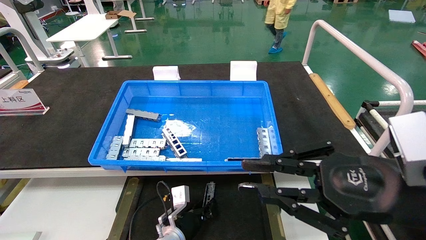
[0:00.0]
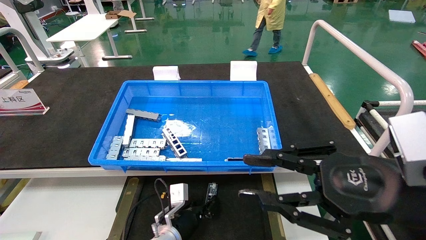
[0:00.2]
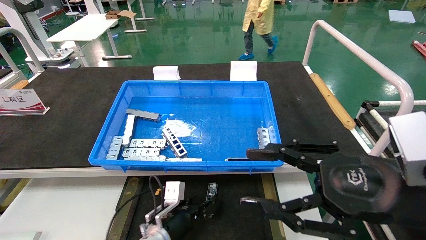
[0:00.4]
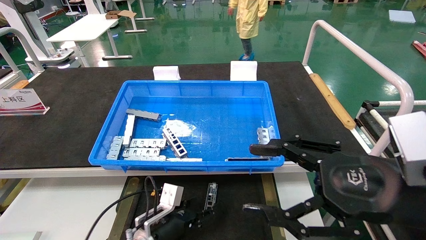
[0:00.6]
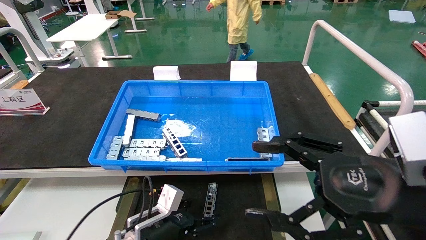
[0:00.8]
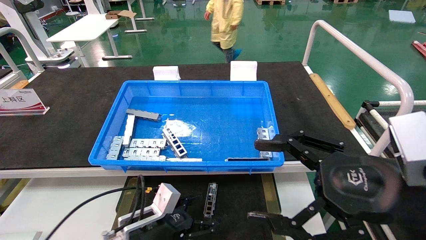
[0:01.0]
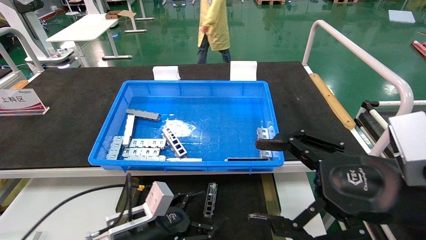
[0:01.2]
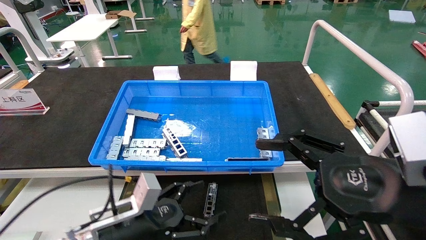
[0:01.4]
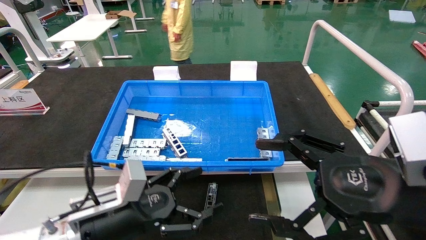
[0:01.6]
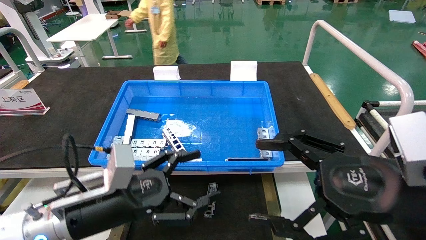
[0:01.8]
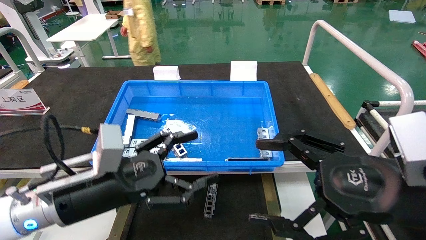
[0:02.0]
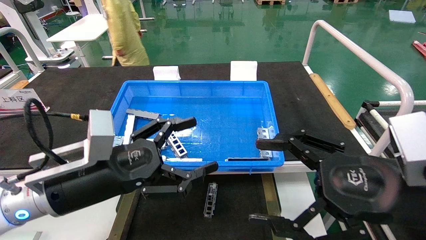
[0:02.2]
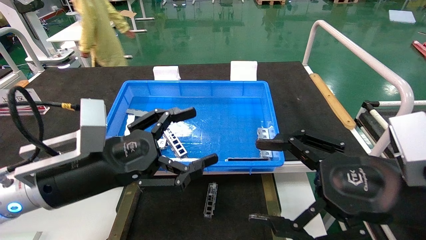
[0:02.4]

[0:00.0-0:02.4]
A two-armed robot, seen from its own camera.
Task of the whole recording: Grasp the part with one hand and place it on the black container.
0:00.0 to 0:01.2: The left gripper goes roughly 15 cm upward, backward and to the left, and opens. Meanwhile the right gripper opens up.
0:01.2 to 0:02.4: The left gripper travels upward by some 15 cm.

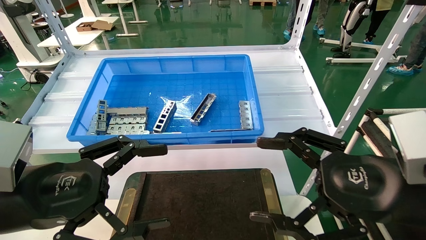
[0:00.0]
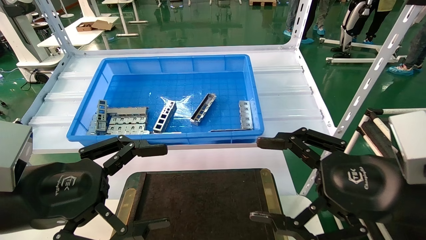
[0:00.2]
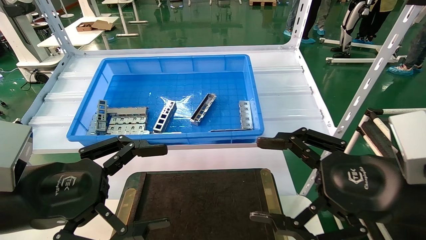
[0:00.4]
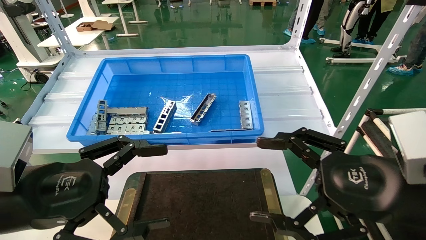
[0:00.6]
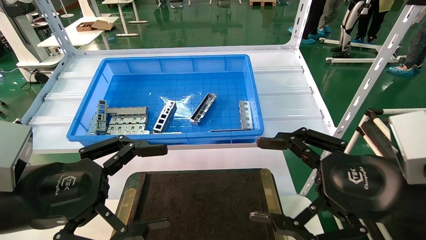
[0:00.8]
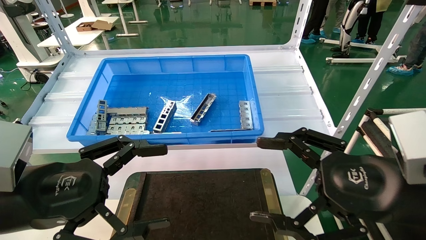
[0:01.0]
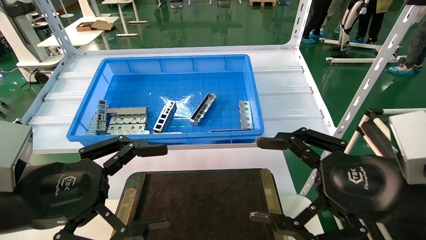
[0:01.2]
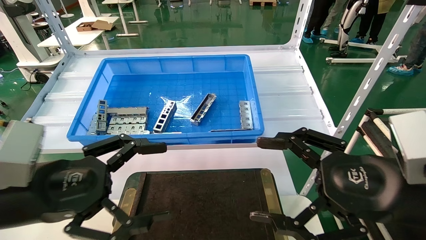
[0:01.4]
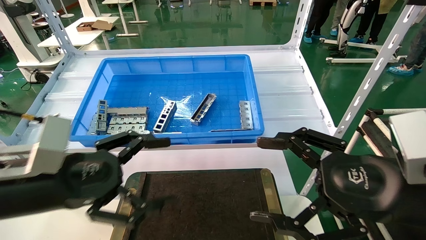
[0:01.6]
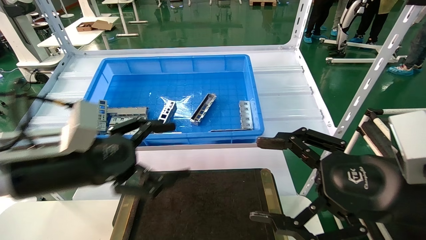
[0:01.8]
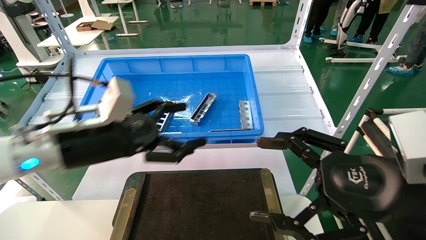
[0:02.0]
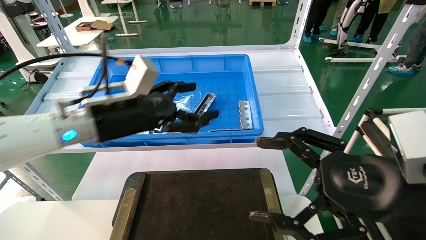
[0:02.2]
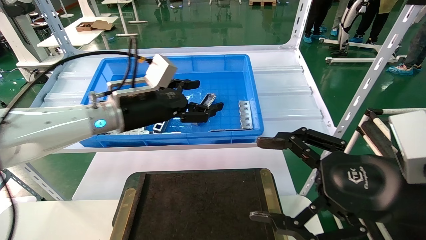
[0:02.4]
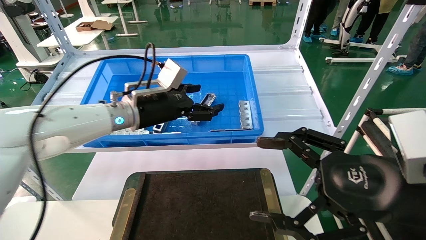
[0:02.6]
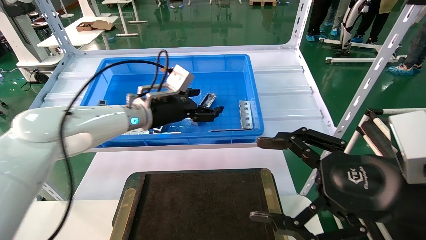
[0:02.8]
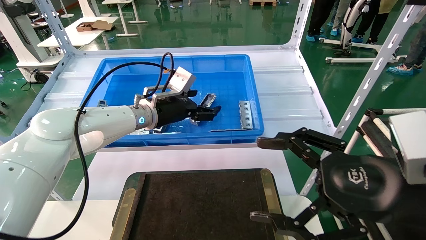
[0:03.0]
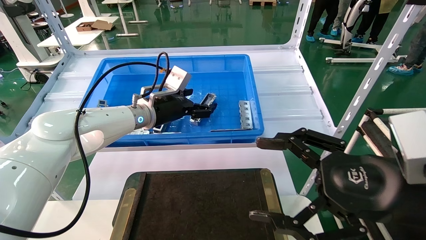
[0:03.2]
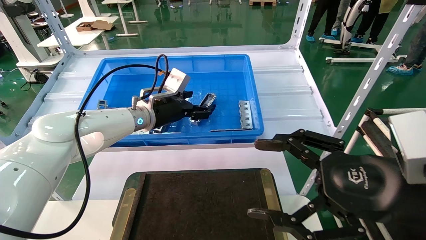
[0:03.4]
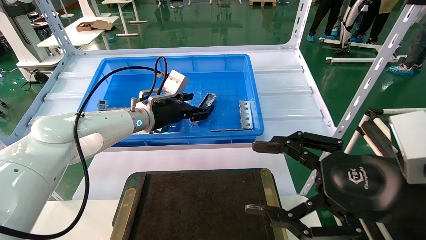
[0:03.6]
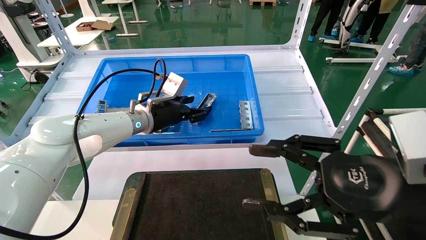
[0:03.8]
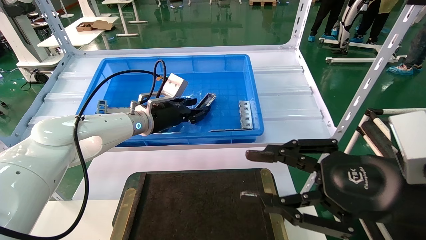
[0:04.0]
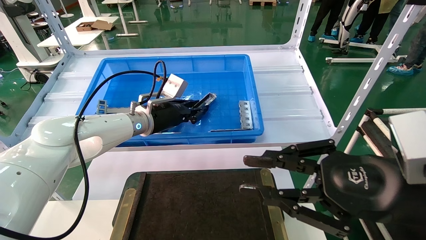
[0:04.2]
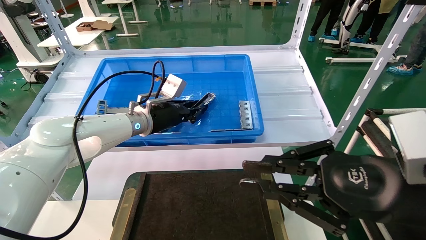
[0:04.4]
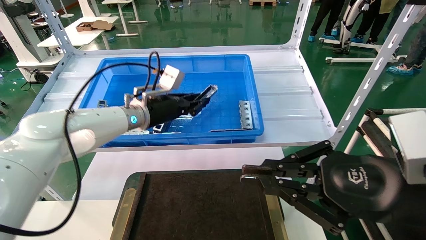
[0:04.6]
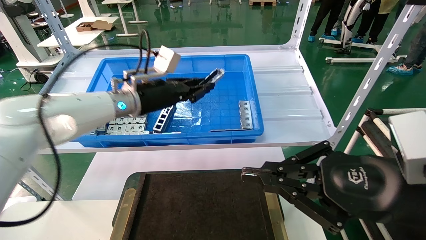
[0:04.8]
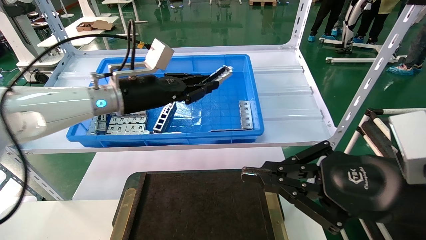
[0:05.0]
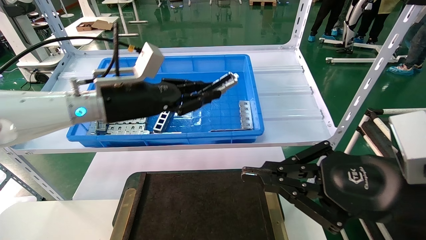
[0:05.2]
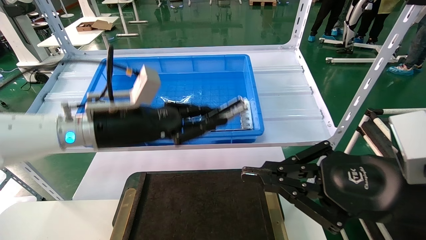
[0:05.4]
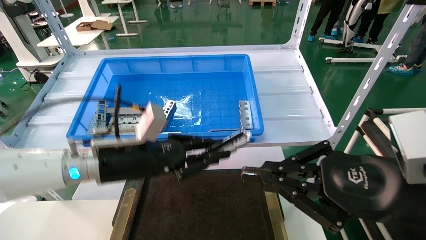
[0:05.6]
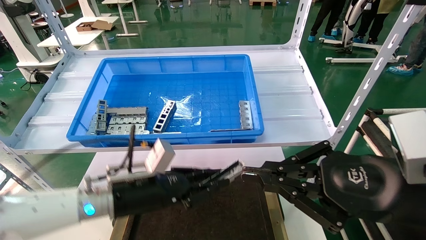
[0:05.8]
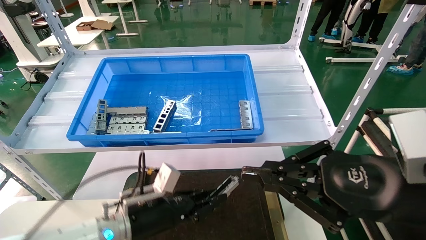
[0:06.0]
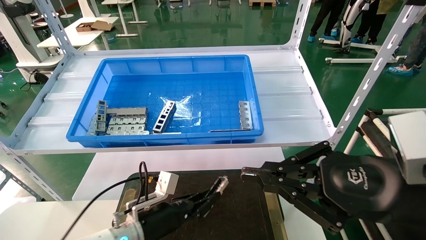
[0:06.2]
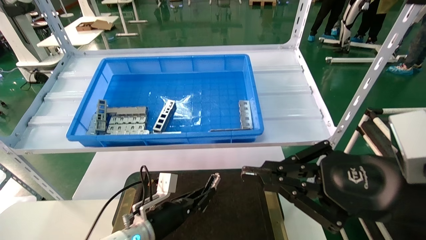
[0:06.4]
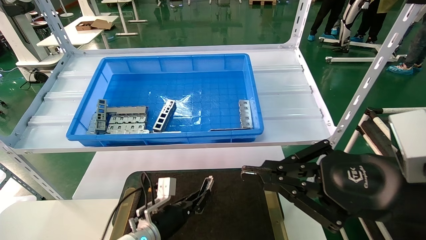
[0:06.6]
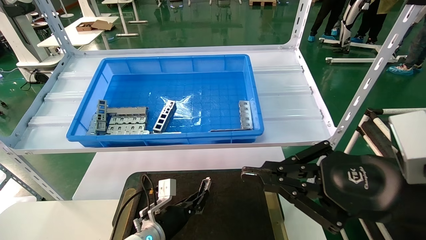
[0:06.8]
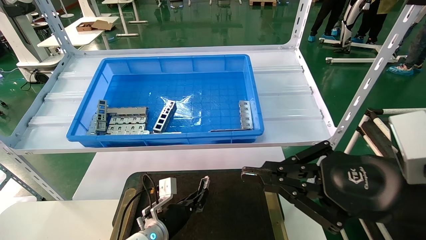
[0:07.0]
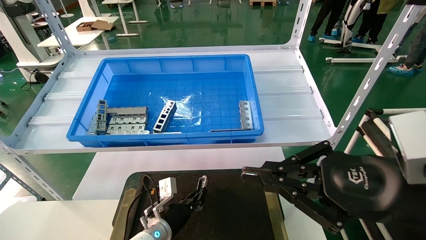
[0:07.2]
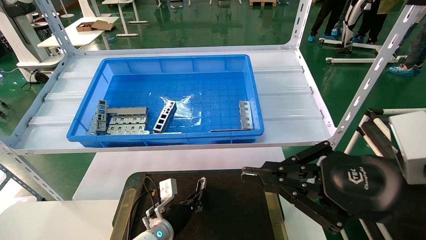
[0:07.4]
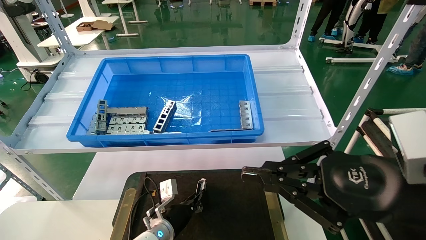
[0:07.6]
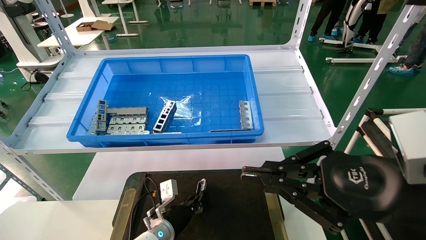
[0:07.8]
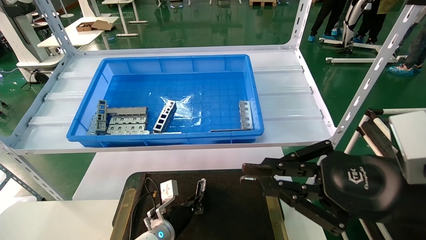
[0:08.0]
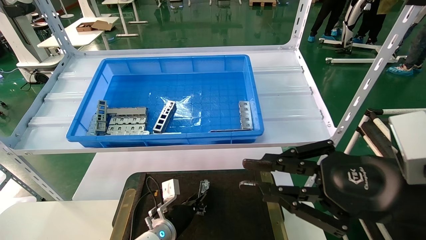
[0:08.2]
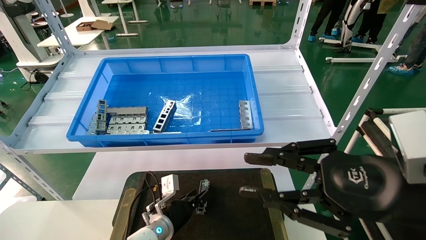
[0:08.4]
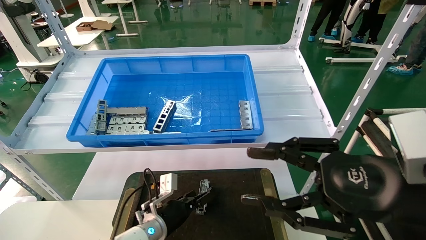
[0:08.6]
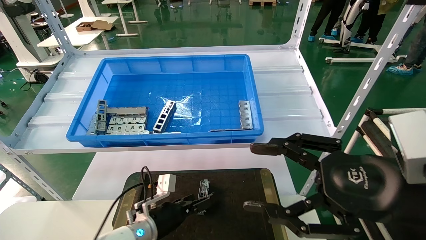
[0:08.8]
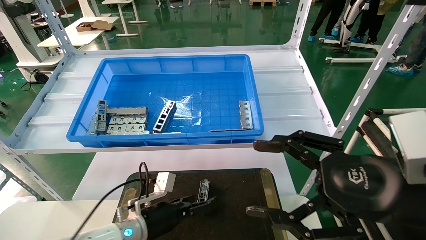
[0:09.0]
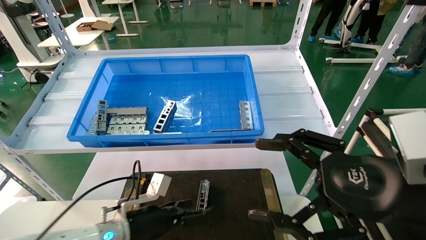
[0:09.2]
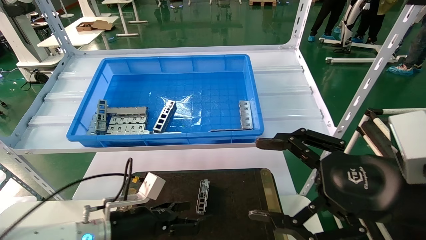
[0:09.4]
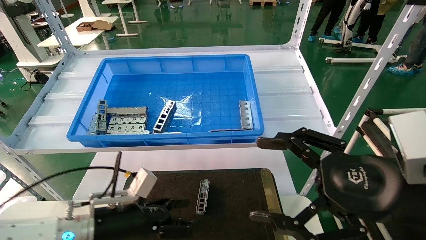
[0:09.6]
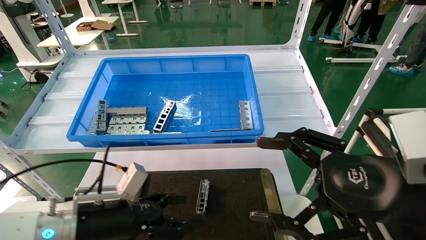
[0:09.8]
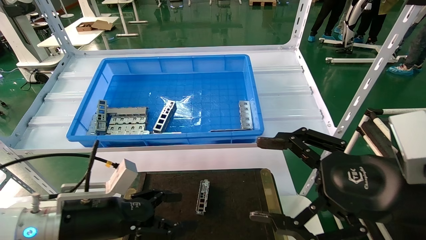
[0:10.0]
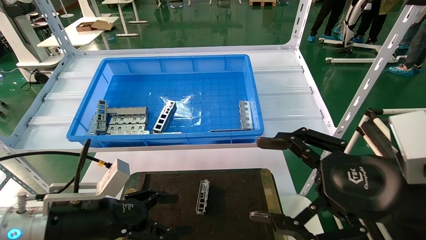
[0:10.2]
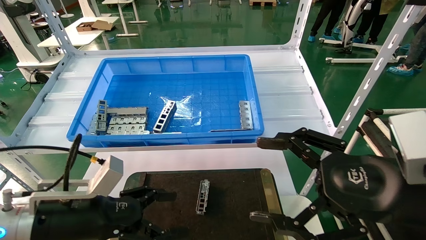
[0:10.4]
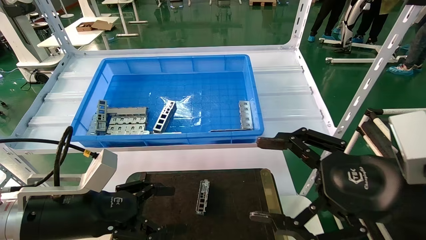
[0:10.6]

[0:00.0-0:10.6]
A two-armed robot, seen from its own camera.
Task of the whole recording: Grasp the part with one hand and place it on the black container.
Step, 0:01.6 to 0:05.2: Pick up the front USB bracket from the feeding area.
Step, 0:05.4 to 0:08.2: Place the front USB bracket into the box.
0:00.0 to 0:01.6: The grippers stay close to where they were, moving slightly.
0:01.6 to 0:03.0: The left gripper is displaced forward and to the right by some 25 cm.
0:03.0 to 0:04.6: The right gripper closes up. Meanwhile the left gripper closes its fingers.
0:04.6 to 0:06.0: The left gripper heads downward and backward, covering approximately 25 cm.
0:06.0 to 0:07.6: The left gripper goes about 15 cm downward and forward.
0:07.6 to 0:09.0: The left gripper travels upward and backward by roughly 10 cm, and opens up; the right gripper opens up.
0:09.0 to 0:10.6: The left gripper heads upward, backward and to the left, covering about 20 cm.

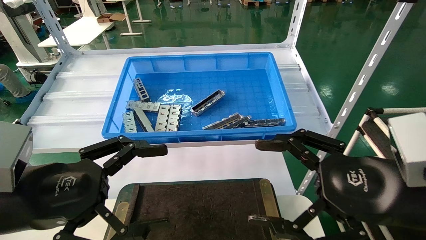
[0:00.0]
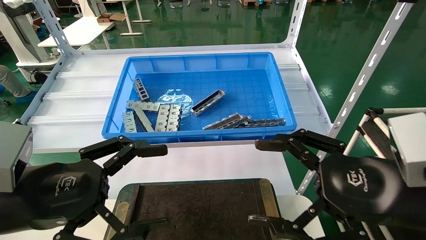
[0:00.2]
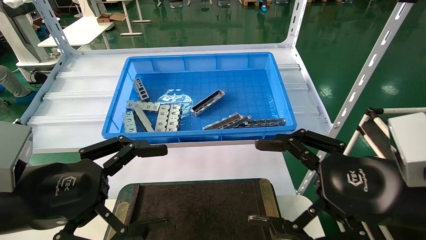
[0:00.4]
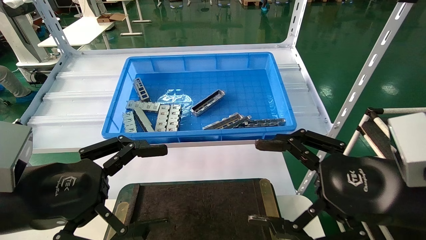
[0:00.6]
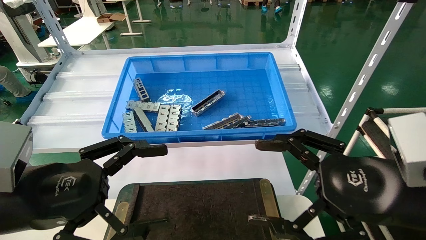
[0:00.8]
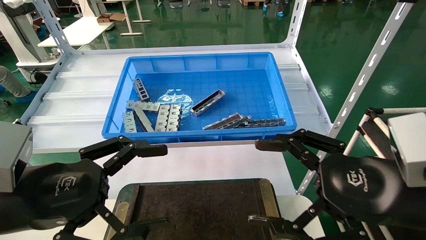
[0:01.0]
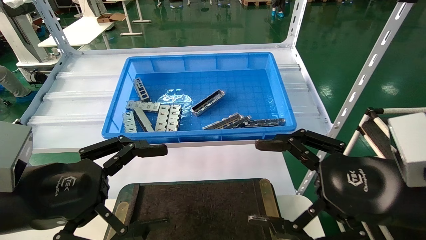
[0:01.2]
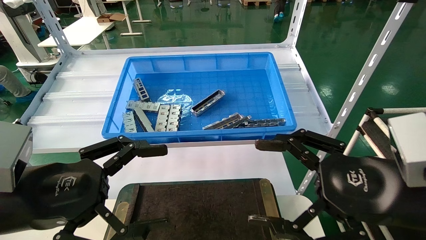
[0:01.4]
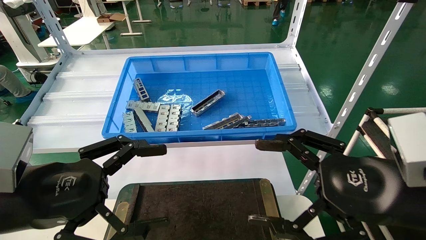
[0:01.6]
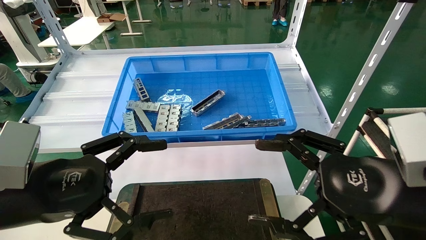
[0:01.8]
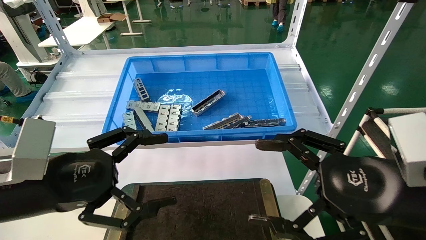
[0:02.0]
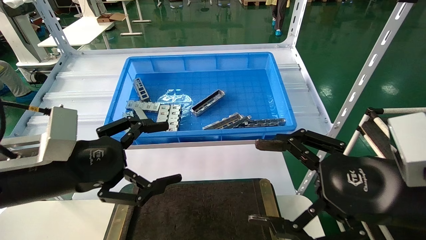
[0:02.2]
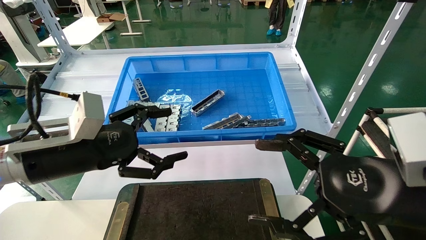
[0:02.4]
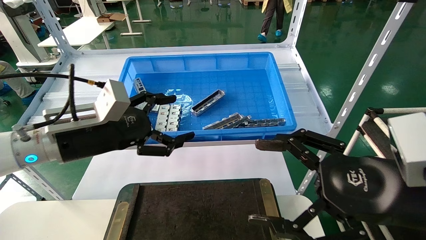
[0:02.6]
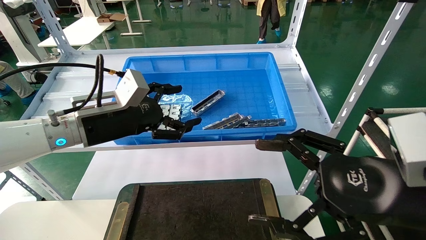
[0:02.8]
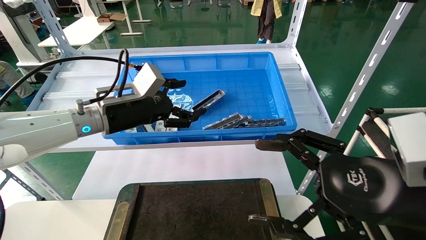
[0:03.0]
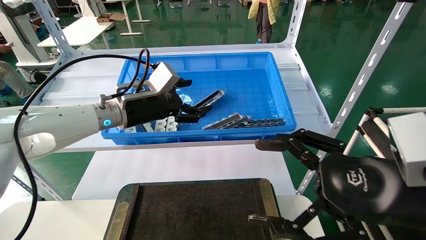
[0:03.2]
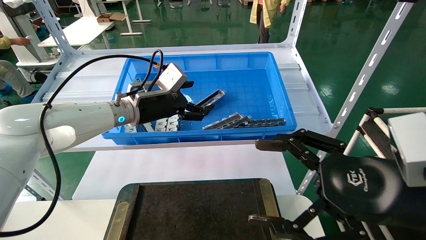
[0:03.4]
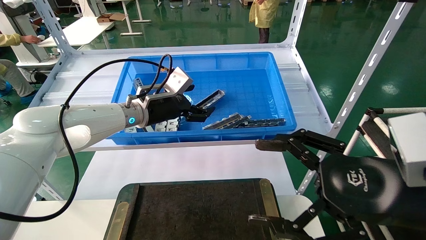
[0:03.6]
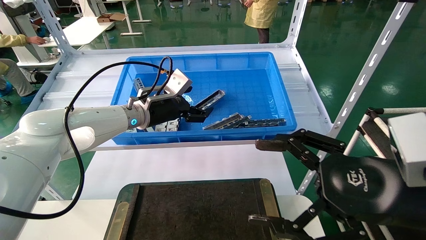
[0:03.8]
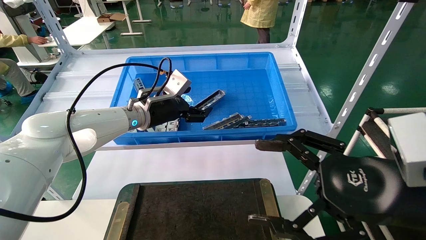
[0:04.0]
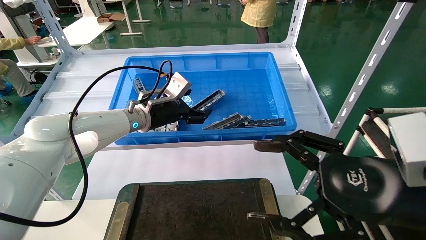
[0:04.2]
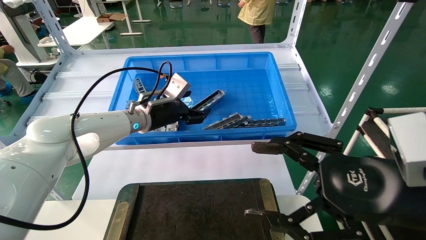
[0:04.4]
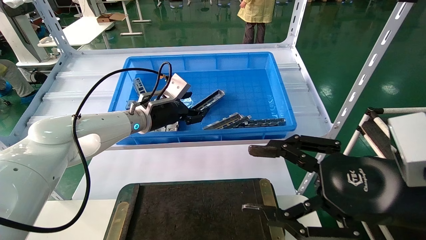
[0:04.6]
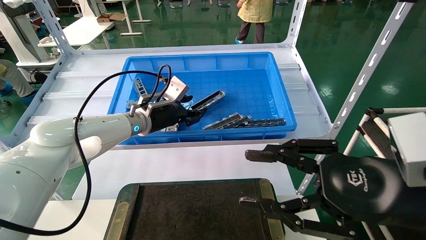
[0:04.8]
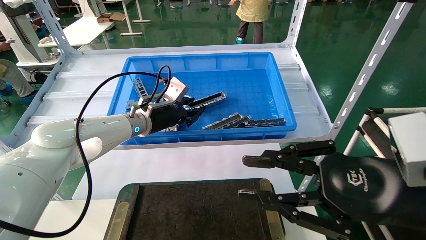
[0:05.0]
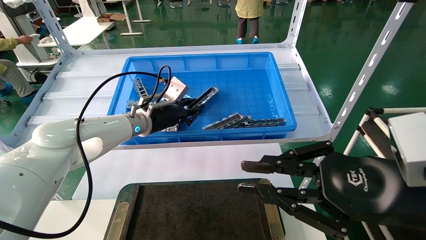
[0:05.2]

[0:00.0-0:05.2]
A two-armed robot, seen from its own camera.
Task of the whole recording: Grasp the part with one hand and place it on the black container.
0:00.0 to 0:01.8: Neither gripper changes place.
0:01.8 to 0:03.4: The left gripper heads forward, covering about 25 cm.
0:03.4 to 0:05.2: The right gripper closes, while the left gripper shifts by approximately 5 cm, and closes up.
